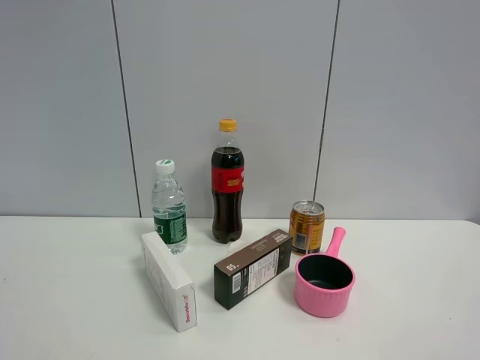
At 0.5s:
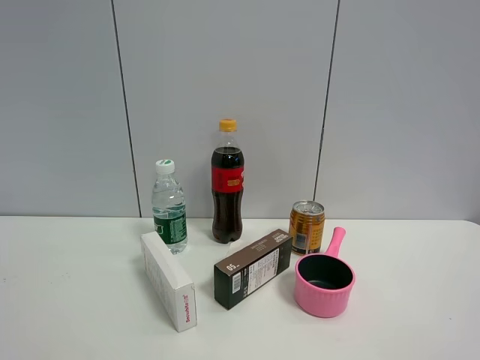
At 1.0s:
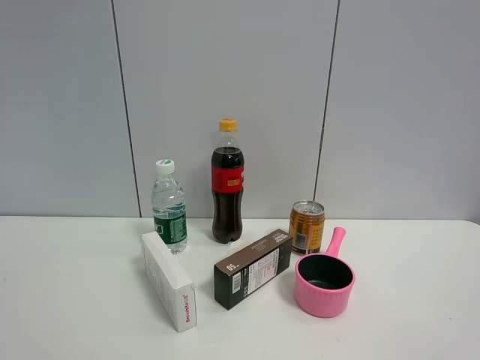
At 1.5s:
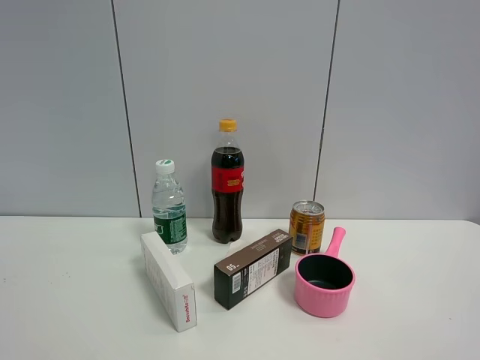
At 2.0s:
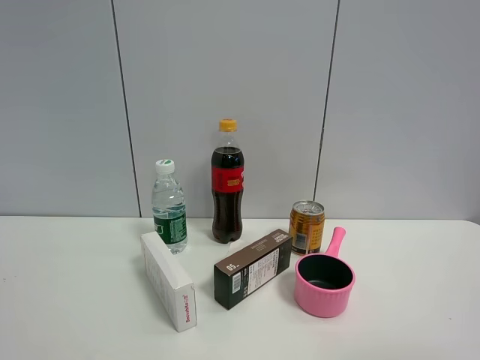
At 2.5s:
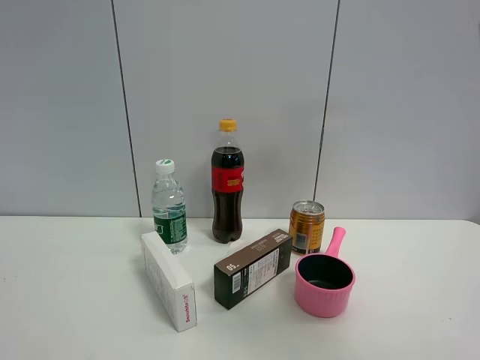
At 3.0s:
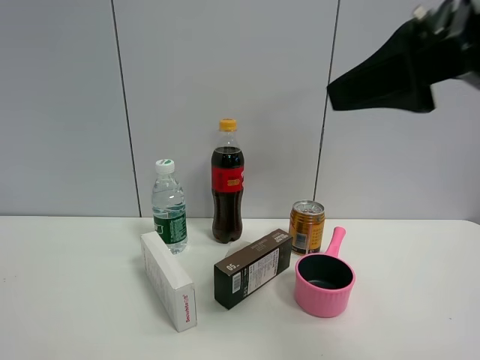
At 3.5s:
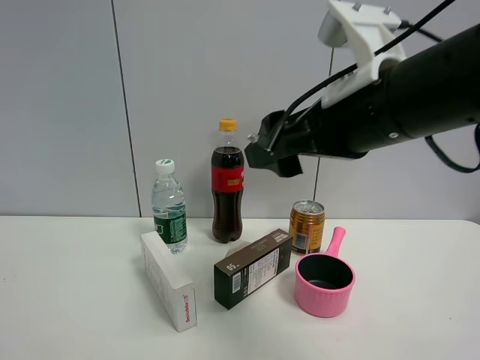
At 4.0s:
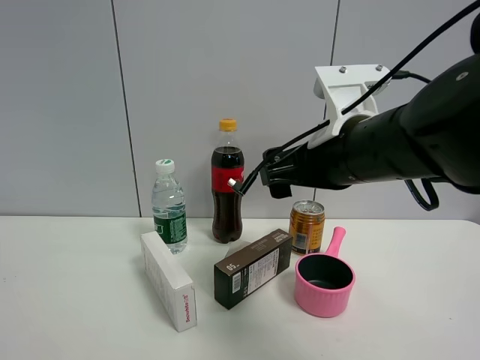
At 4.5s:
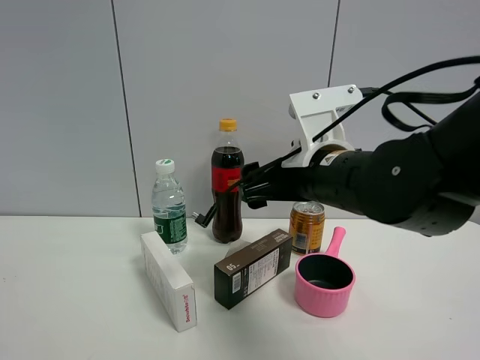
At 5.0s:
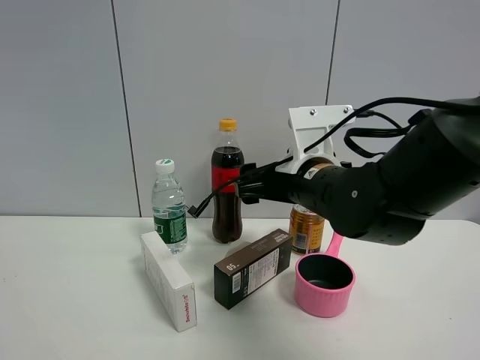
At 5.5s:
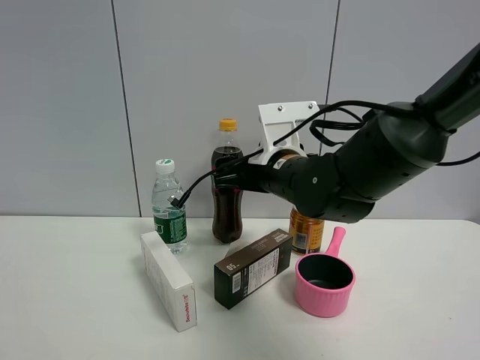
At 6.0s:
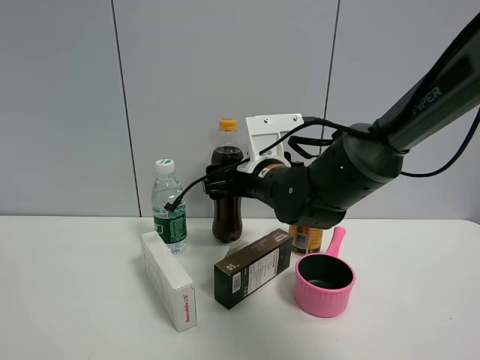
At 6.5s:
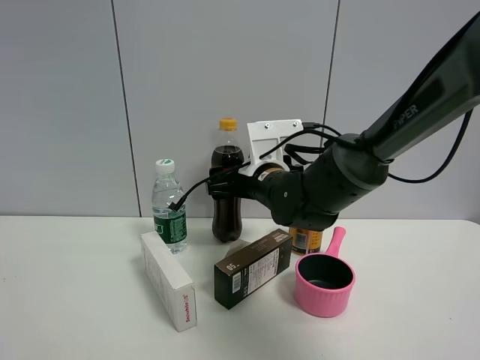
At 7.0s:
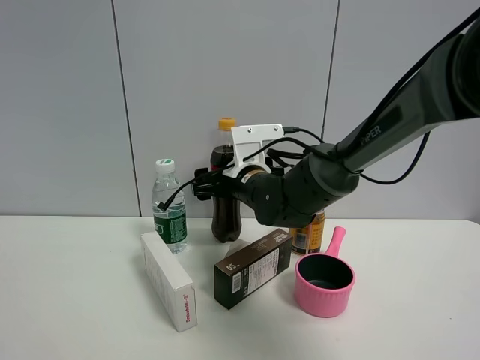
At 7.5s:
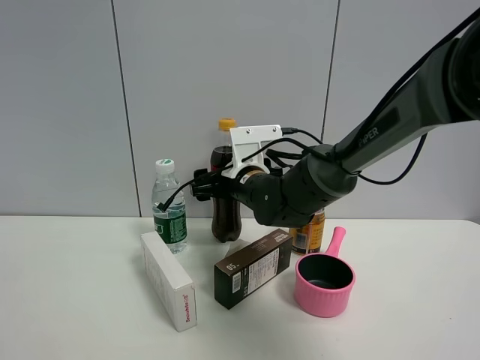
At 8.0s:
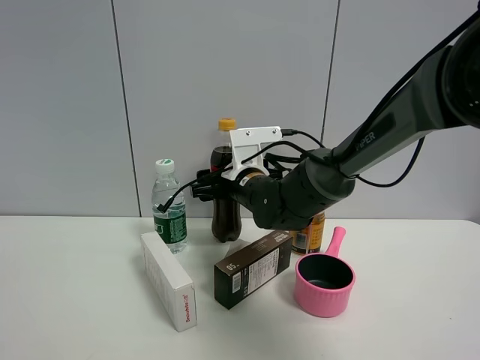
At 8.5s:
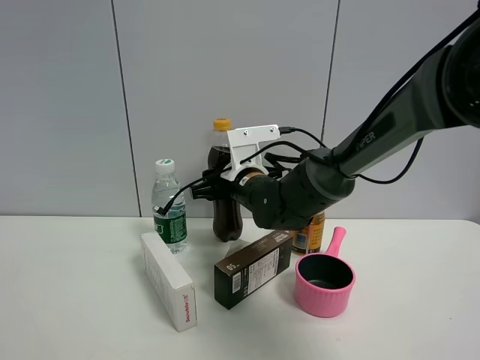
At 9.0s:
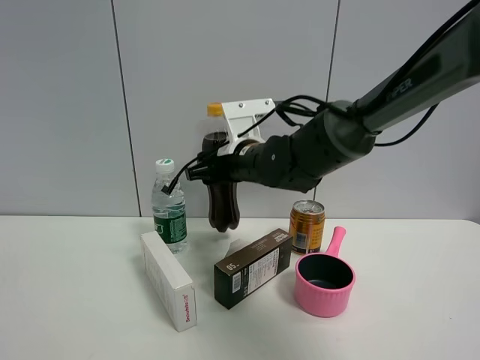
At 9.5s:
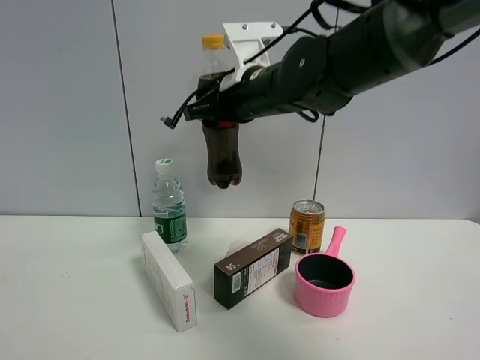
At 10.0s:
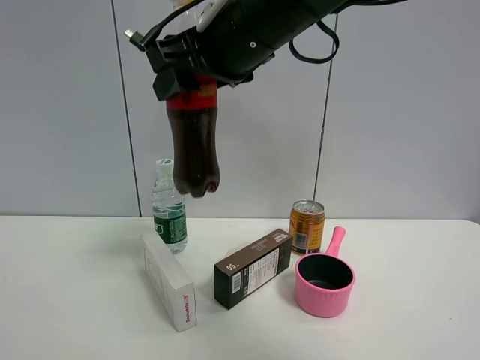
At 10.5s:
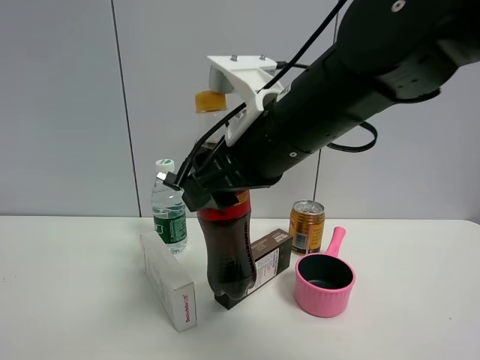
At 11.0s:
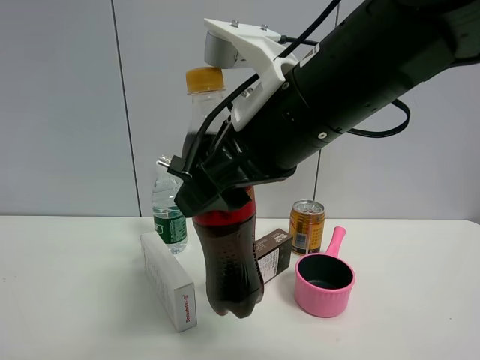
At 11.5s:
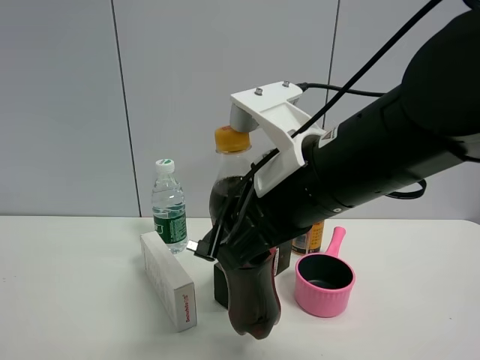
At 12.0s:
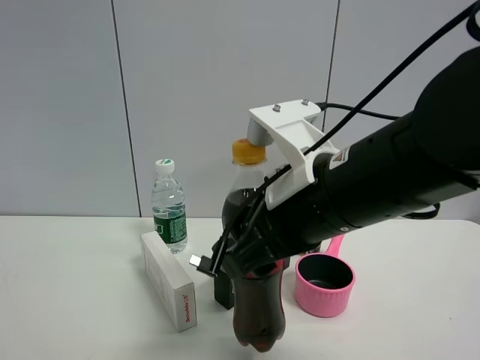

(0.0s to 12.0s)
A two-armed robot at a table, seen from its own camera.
Task of the whole recording: the gripper move the object.
Step, 0.0s - 8.0s: Grasp the coke with the right gripper.
2.0s - 4.0s: The right gripper travels forward and to the left by roughly 30 cm.
4.0s - 6.0s: The right gripper shifts approximately 15 cm forward, downward and to the left.
6.0s - 8.0s: The right gripper changes place by approximately 5 cm, and closes its fingers.
8.0s - 10.0s: The right gripper heads upward and backward, covering about 25 cm, and closes its fingers.
10.0s - 12.0s: The right gripper moves downward, backward and to the right, about 15 cm.

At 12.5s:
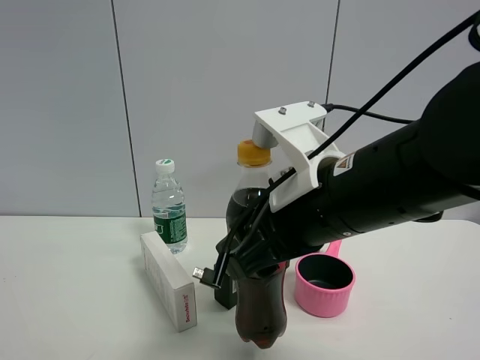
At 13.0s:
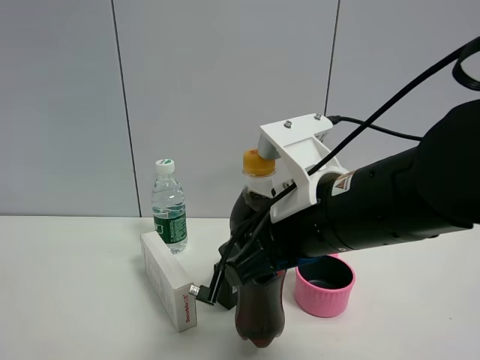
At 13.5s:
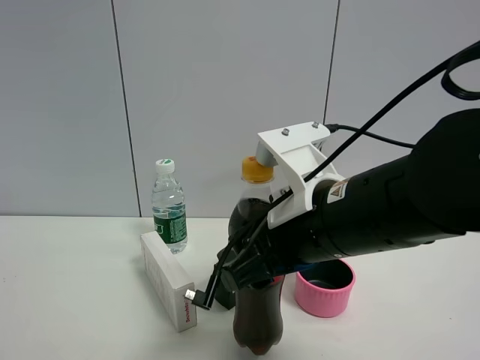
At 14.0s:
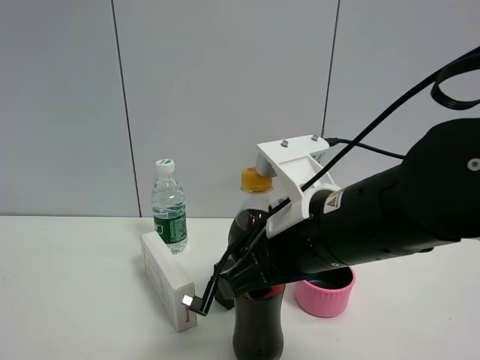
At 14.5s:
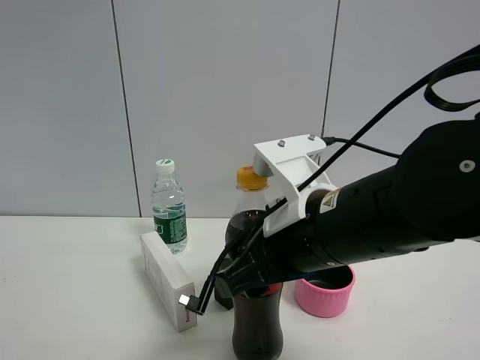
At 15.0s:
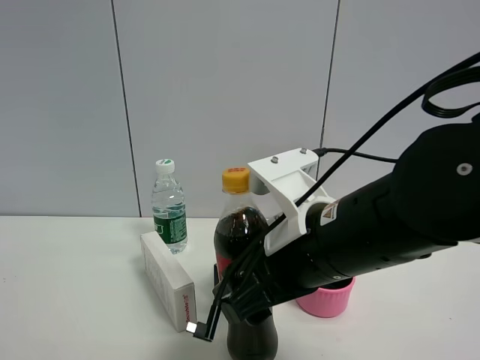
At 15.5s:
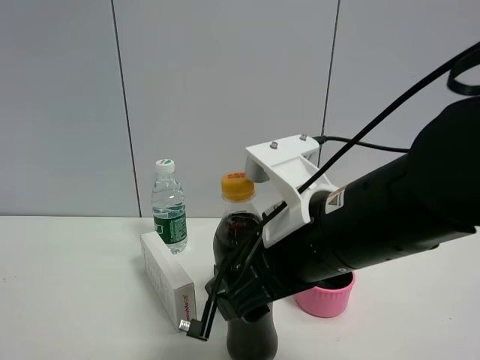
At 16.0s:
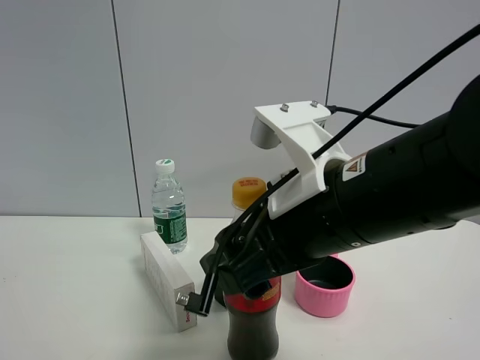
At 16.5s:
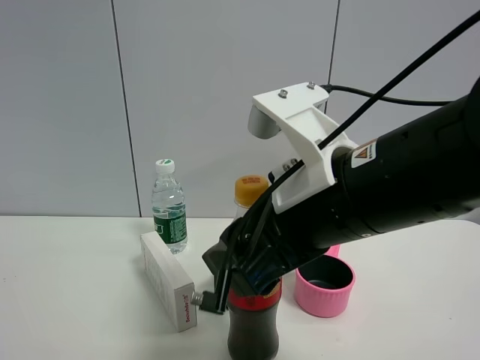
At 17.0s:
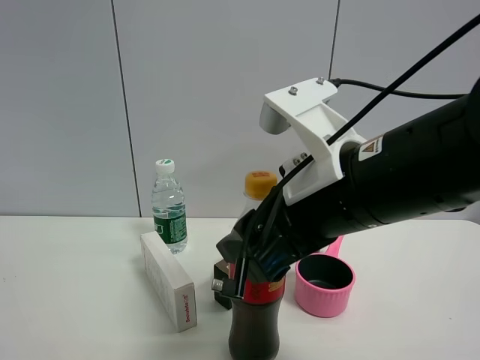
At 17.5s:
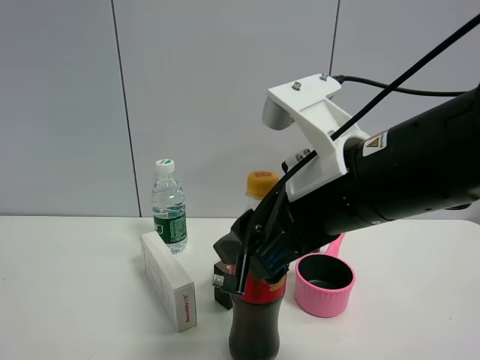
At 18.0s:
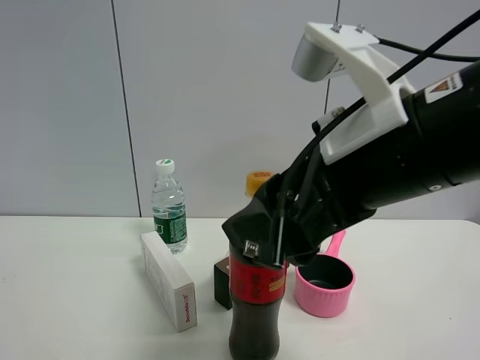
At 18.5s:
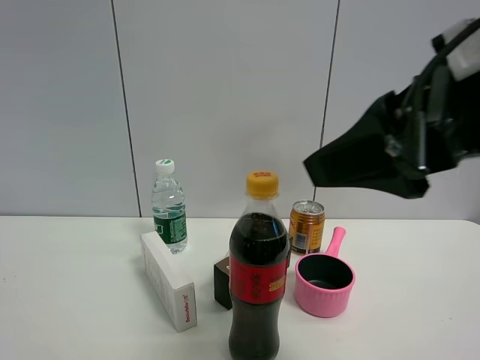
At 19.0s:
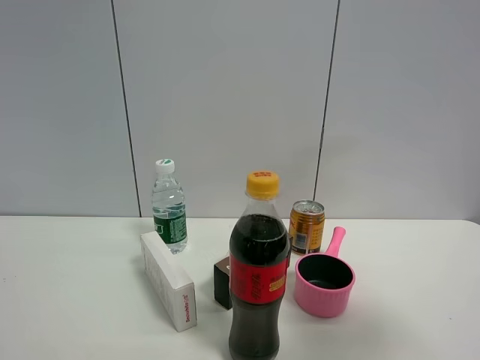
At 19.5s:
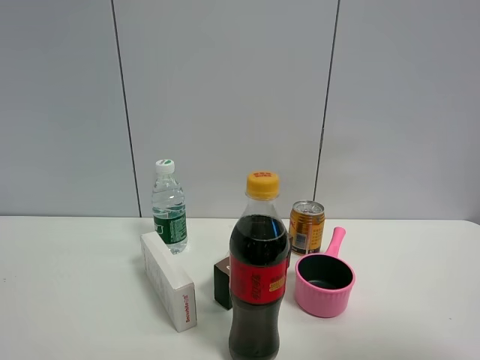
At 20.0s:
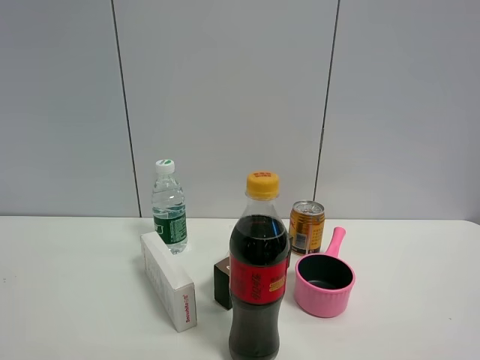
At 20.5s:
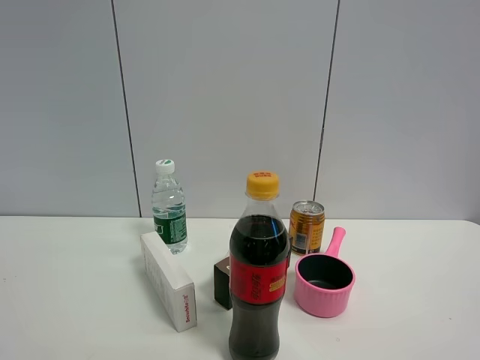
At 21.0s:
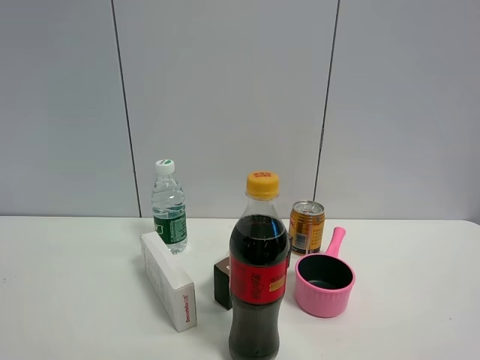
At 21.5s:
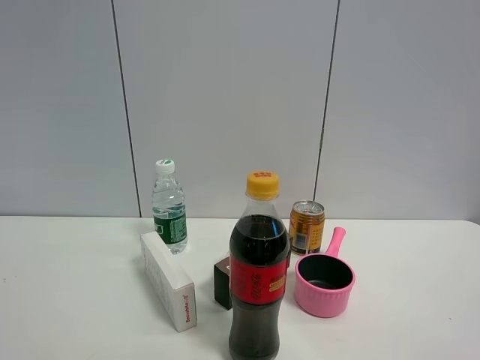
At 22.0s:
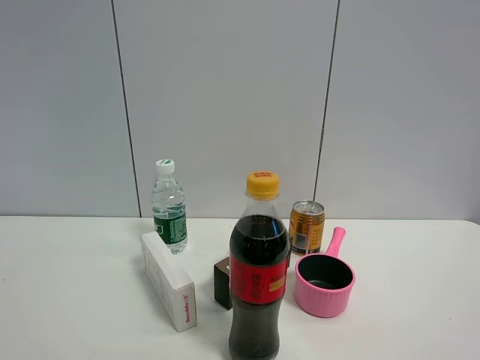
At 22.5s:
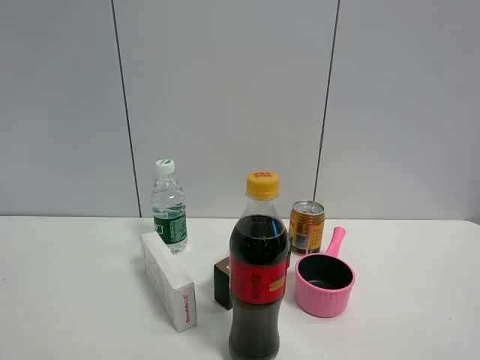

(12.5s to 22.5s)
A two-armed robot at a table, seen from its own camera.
Task of the whole recording: the gripper move the object.
Step, 12.5s - 18.0s: Place the coke on the table with the right gripper.
12.5s - 14.5s: The grippers move only a little.
14.5s - 16.5s: The right gripper shifts by approximately 5 cm, and opens.
16.5s - 18.5s: The right gripper moves upward and to the right, about 15 cm.
18.5s - 20.5s: The right gripper travels backward and to the right by roughly 20 cm.
20.5s - 22.5s: Both grippers stay put.

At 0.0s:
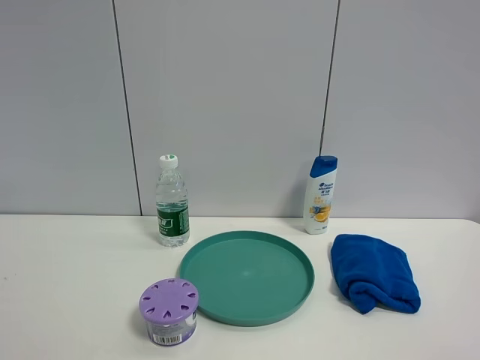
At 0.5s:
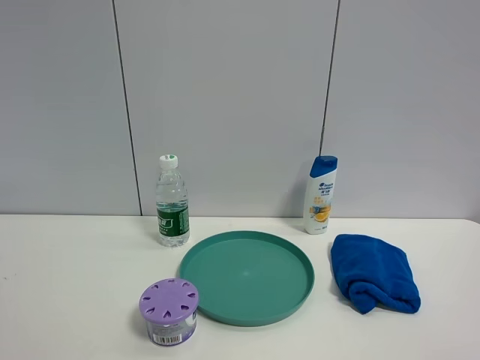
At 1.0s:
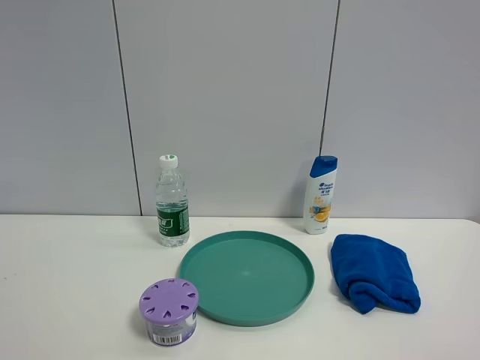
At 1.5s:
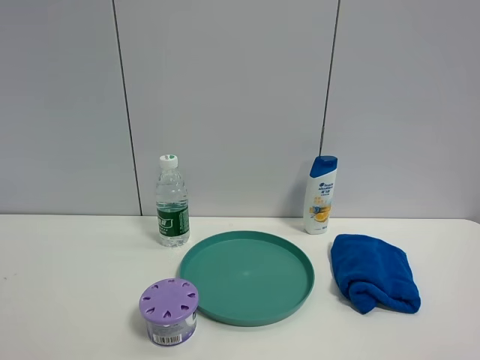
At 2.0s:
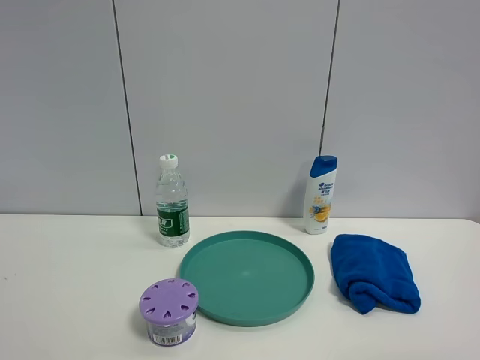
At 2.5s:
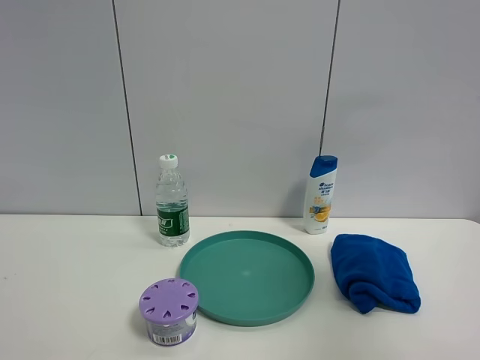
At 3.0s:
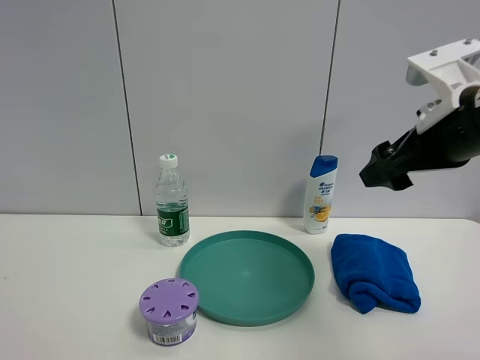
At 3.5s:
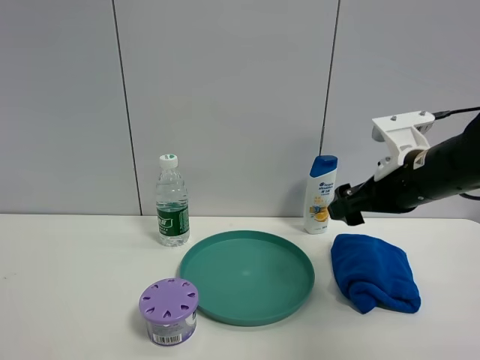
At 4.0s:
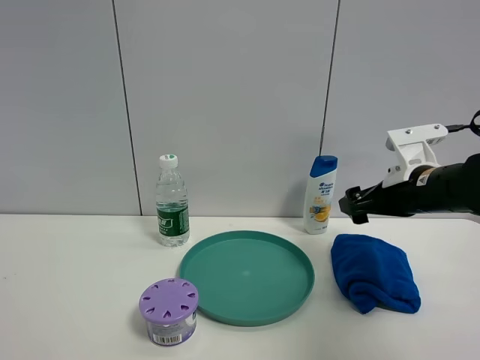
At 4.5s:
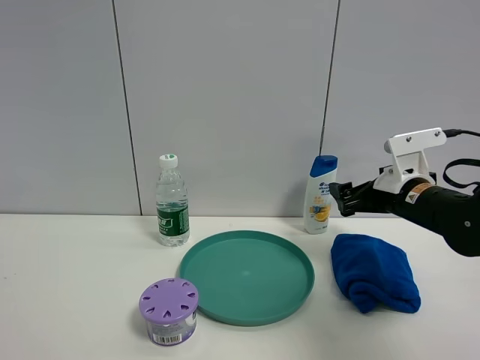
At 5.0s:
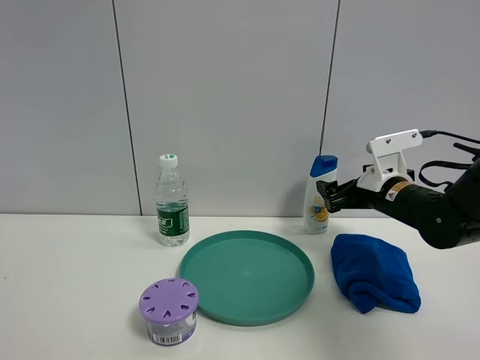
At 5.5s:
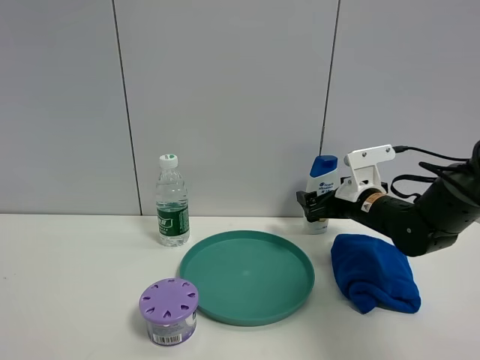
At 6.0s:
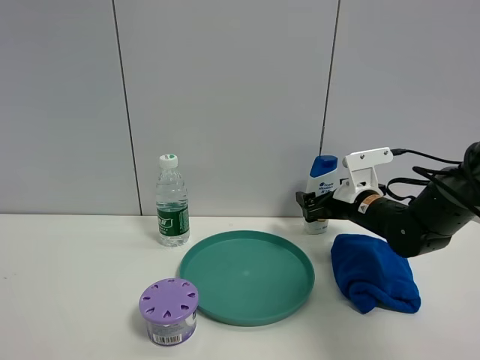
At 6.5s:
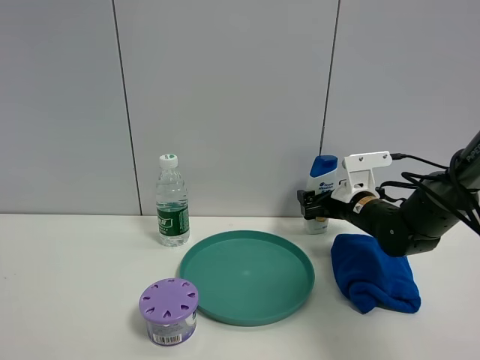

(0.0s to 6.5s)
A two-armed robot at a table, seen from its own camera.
Task of the whole recording: the gripper move the object.
2.0s - 4.5s: The right gripper moves forward and downward, approximately 40 cm.
4.5s - 6.5s: The right gripper is displaced forward and downward by about 10 cm.
